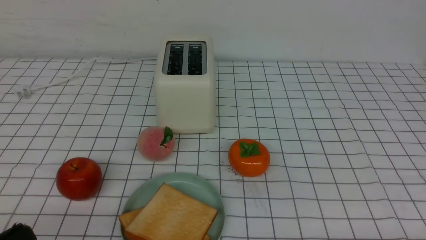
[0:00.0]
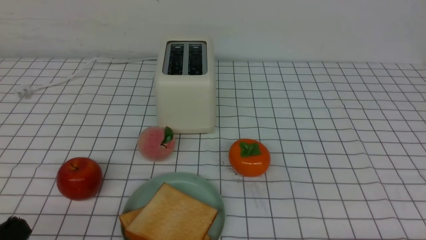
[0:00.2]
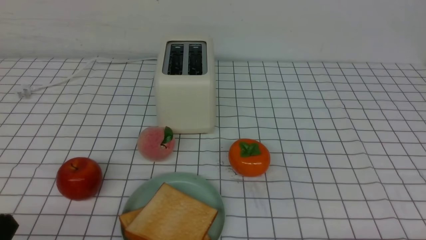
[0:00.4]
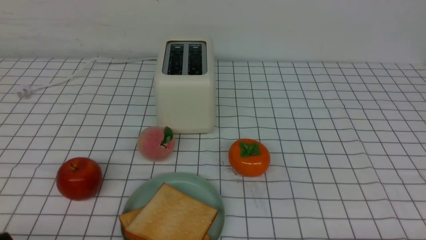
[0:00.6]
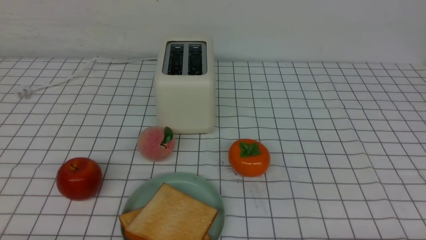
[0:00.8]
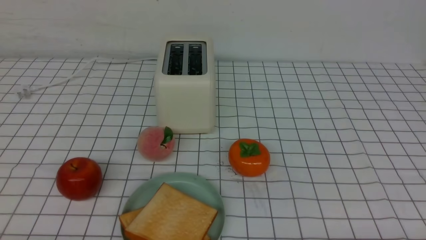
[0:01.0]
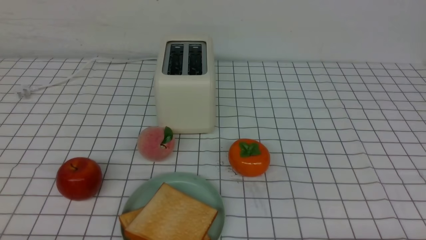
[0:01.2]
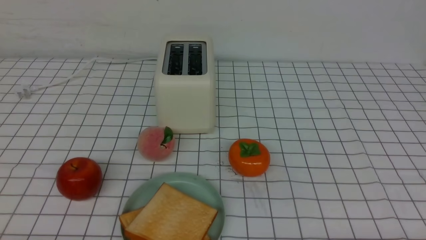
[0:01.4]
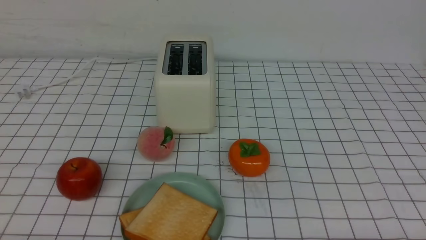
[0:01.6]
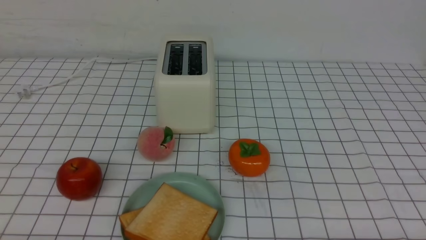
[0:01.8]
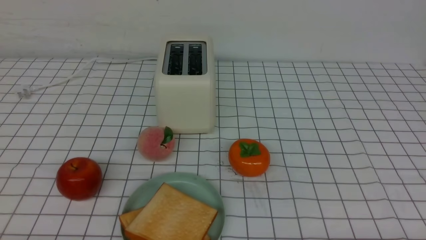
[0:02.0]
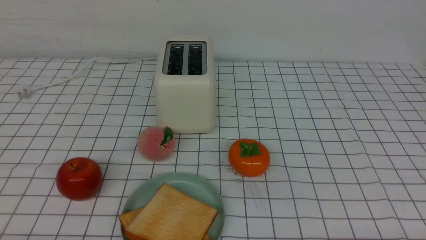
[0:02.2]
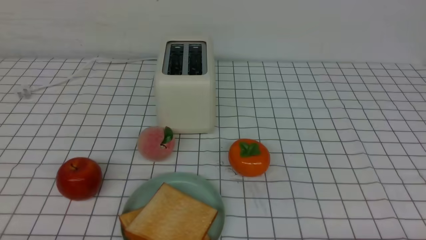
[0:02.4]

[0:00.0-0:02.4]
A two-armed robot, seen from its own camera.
Task of the whole recording: take toasted bread from bread machine on white checkered table place on plate.
0:01.2 to 0:02.4: Both grippers stay about where they are.

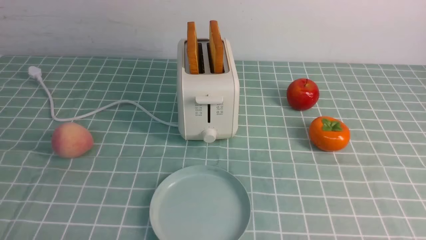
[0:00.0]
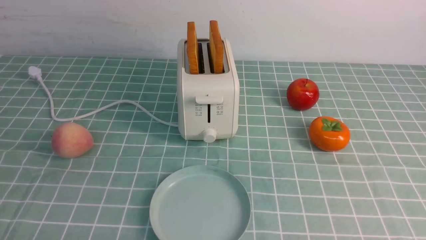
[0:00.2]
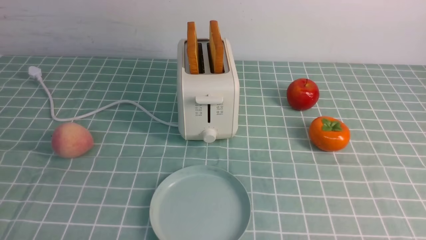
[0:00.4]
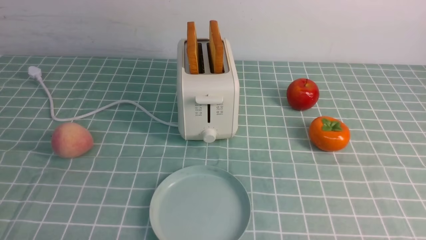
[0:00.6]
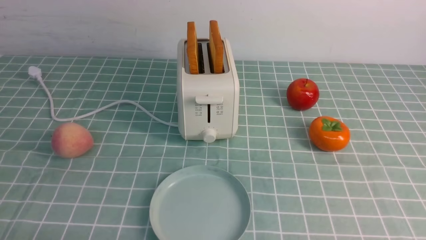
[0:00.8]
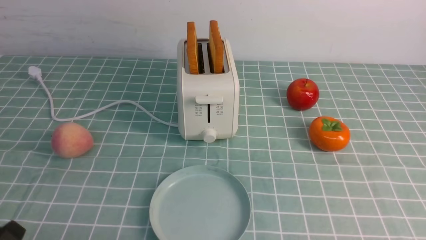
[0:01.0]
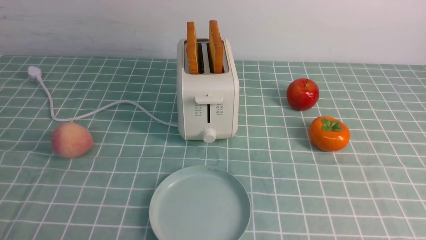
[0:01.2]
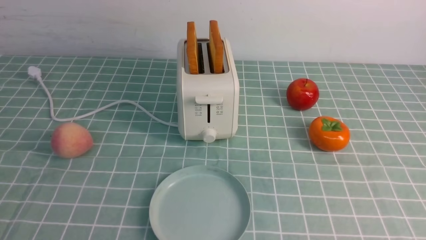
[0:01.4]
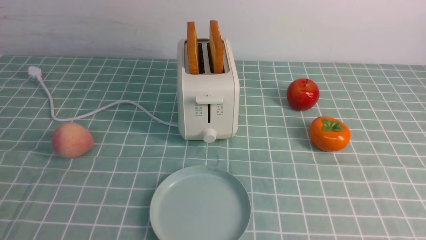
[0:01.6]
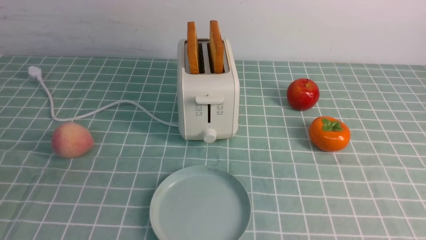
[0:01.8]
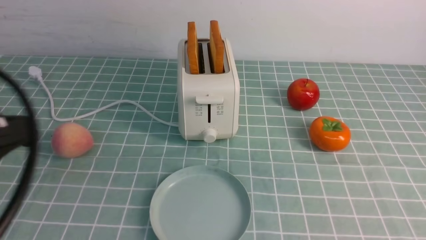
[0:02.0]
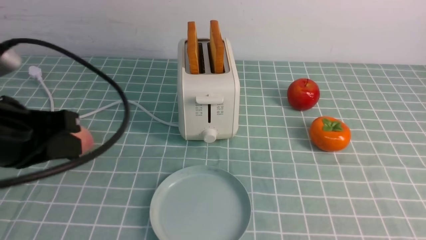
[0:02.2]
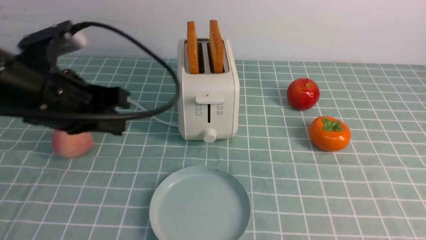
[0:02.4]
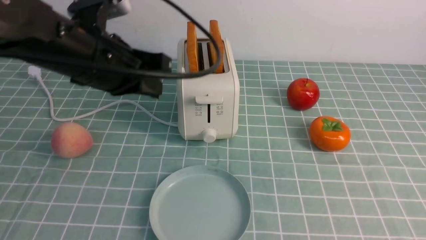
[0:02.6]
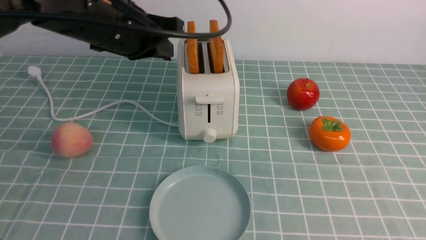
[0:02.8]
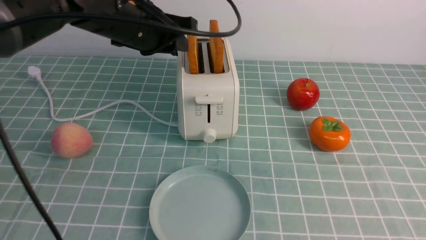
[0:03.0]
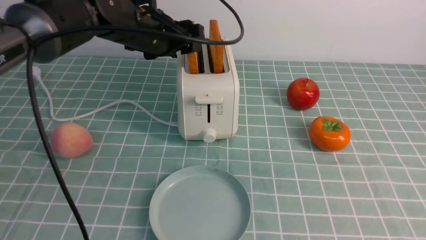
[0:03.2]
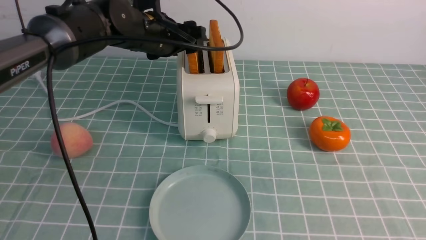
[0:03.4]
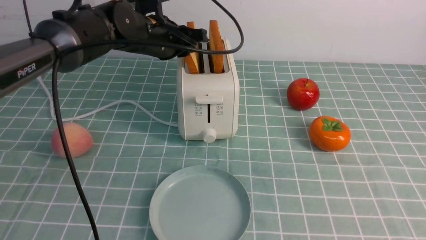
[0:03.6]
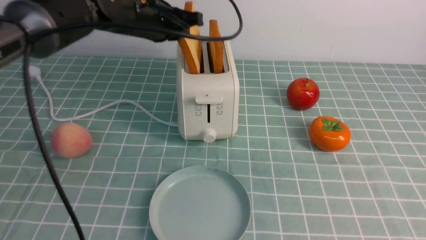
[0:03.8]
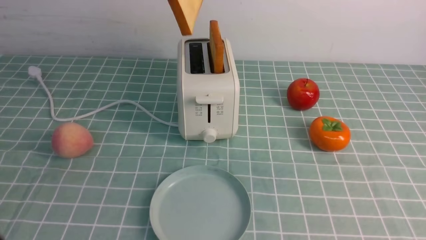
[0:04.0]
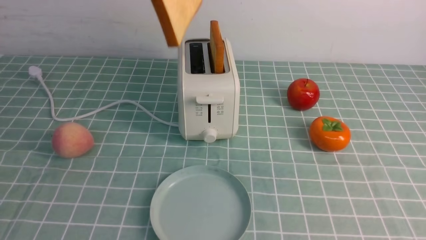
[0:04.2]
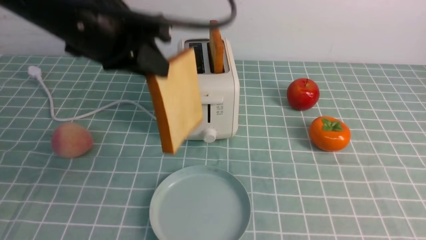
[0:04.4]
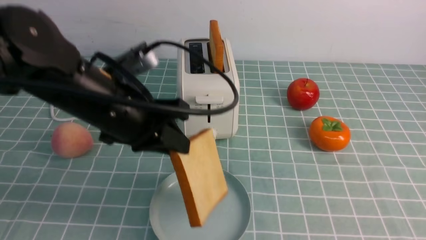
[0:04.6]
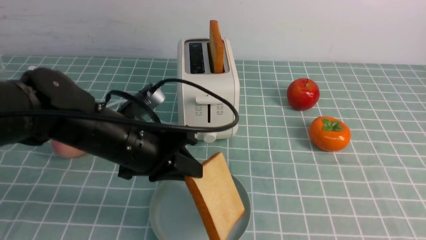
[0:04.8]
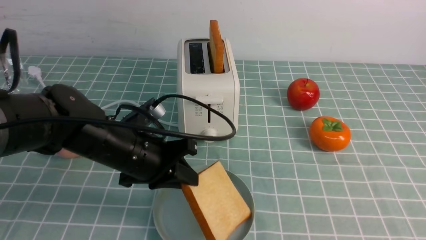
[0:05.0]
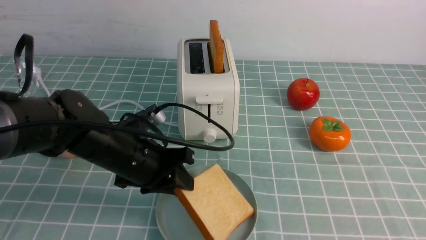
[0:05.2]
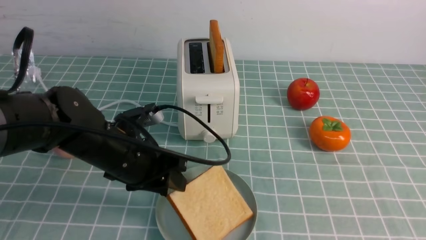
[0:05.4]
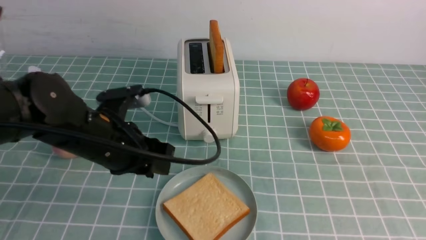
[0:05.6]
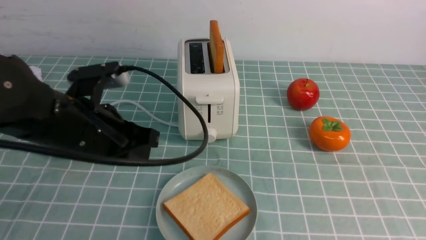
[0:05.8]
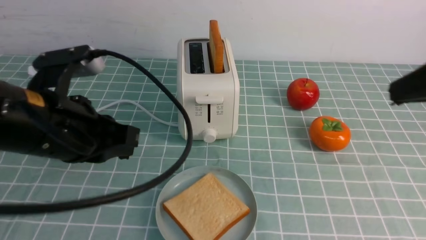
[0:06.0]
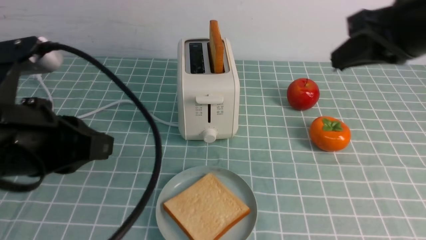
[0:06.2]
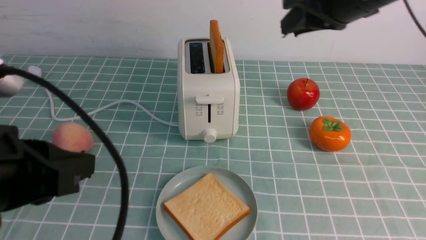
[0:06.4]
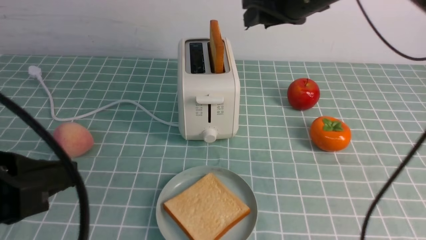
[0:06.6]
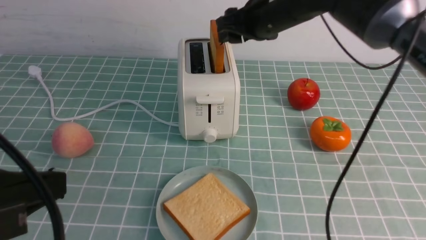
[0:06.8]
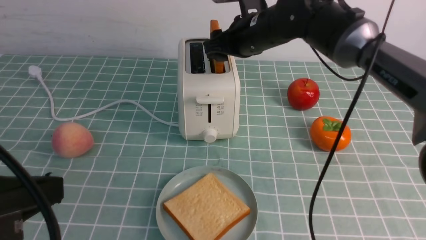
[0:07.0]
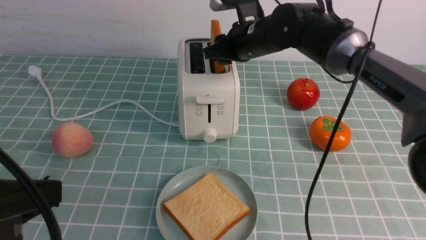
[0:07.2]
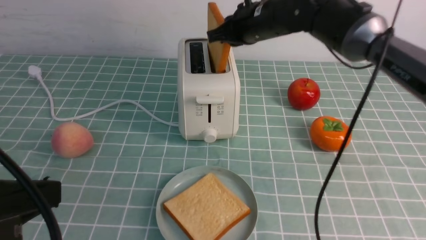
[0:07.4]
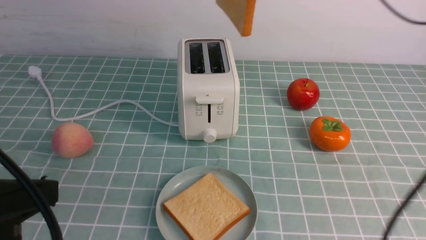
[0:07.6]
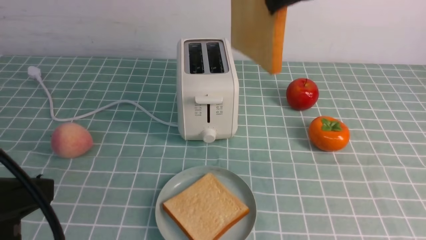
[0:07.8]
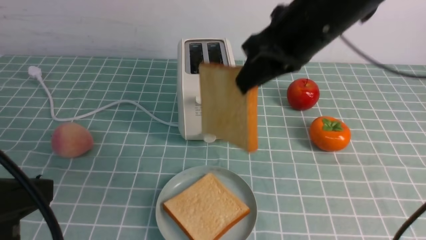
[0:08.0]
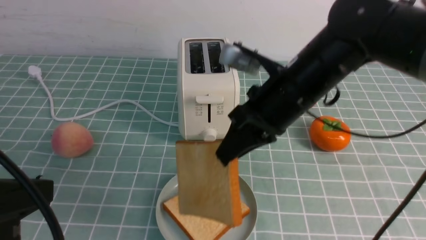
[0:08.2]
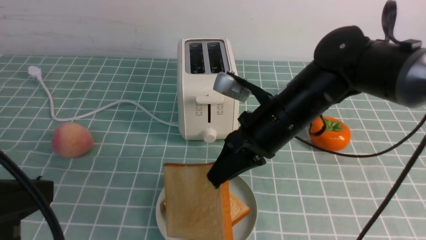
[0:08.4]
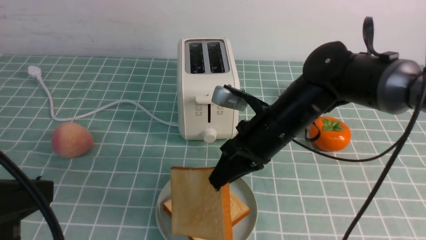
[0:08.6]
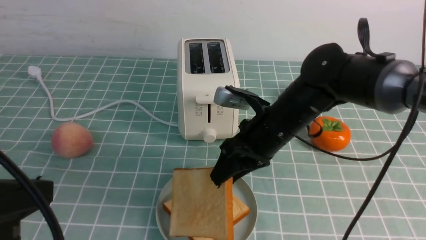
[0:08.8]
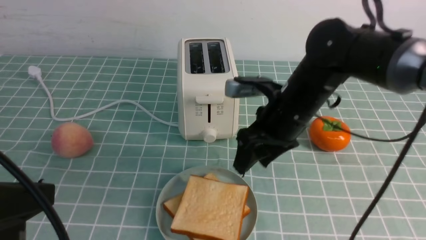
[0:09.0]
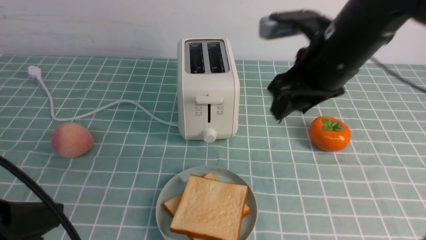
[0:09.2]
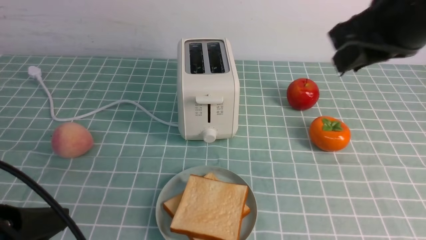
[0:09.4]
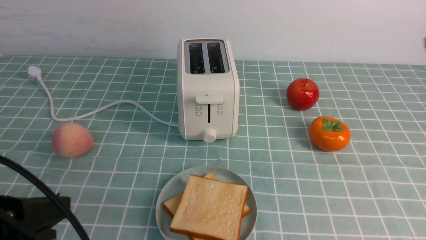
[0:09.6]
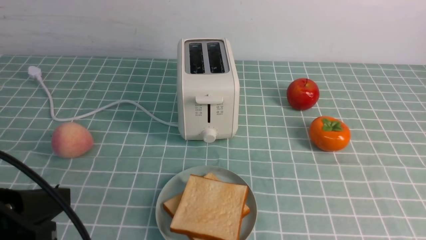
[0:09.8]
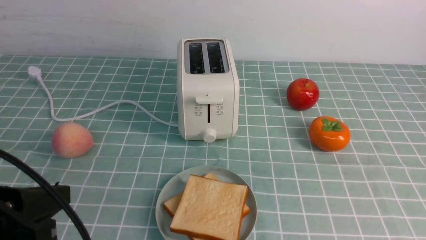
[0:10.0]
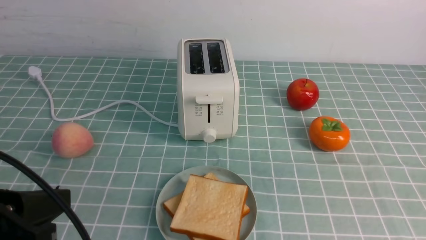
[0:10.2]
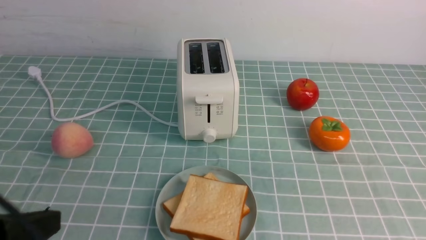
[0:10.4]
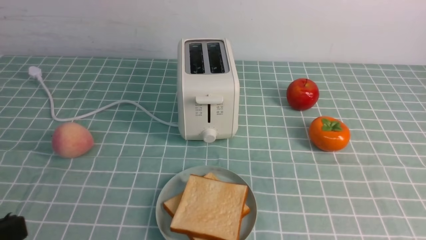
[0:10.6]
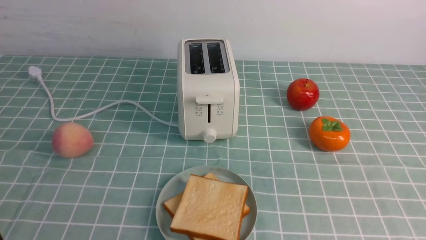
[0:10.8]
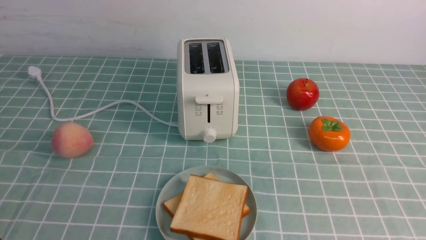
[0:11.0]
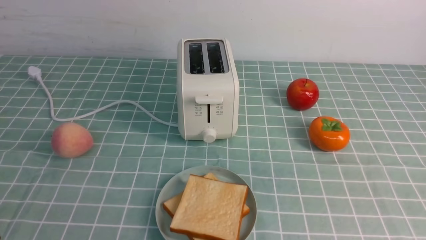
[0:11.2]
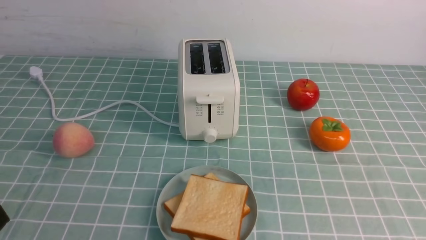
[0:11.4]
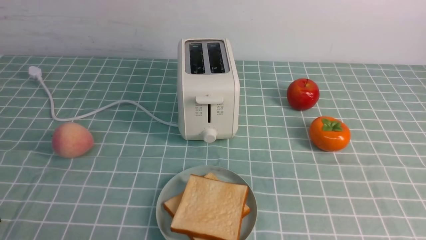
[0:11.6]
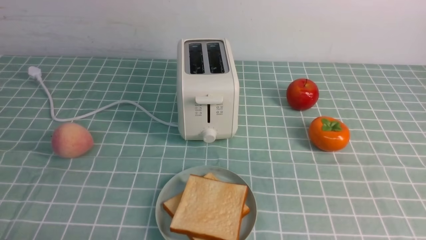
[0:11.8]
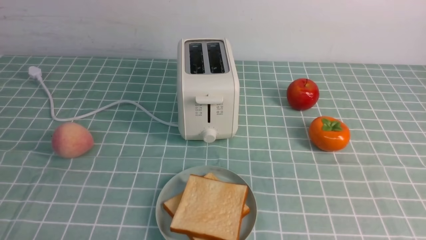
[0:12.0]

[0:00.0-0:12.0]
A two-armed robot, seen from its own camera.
Task of the whole recording: take toasted bread from bread machine on blue coffee table place on plate.
Step, 0:00.0 to 0:04.0: use the left arm to take out a slice of bread.
Step, 0:04.2 to 0:06.0: use the left arm to put a slice of bread into the empty plate.
Step, 0:06.4 to 0:07.4: use the right arm to take out a slice of bread.
Step, 0:07.6 to 0:09.2: use the right arm to put a slice of bread into the plate.
0:01.6 to 0:03.0: The left gripper shifts roughly 40 cm forward and to the right, and opens up. Meanwhile the right gripper moves upward, about 10 cm, and closes up.
0:03.0 to 0:04.4: The left gripper heads backward, covering approximately 10 cm, and closes up.
0:04.4 to 0:06.0: The left gripper heads backward, covering about 10 cm, goes downward and returns, roughly 15 cm each way, and opens and closes again. The right gripper shifts approximately 20 cm forward and upward.
0:06.0 to 0:07.6: The left gripper shifts some 10 cm backward. The right gripper heads forward and to the left, covering roughly 20 cm, and opens, then closes once more.
0:07.6 to 0:09.0: The right gripper shifts roughly 15 cm downward, and opens its fingers.
0:09.0 to 0:10.4: The right gripper moves backward and to the right, roughly 35 cm, and closes.
0:10.4 to 0:12.0: The left gripper heads downward, covering roughly 15 cm.

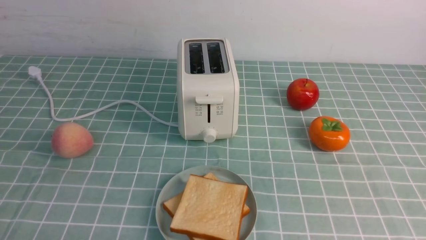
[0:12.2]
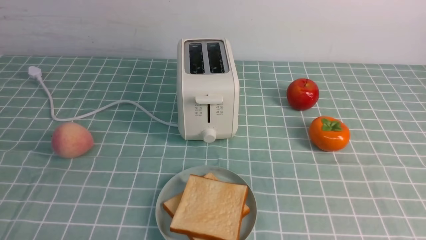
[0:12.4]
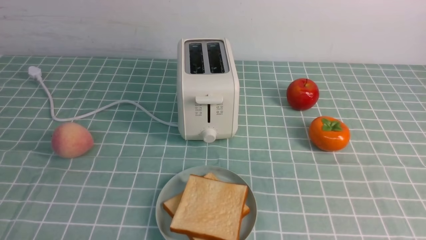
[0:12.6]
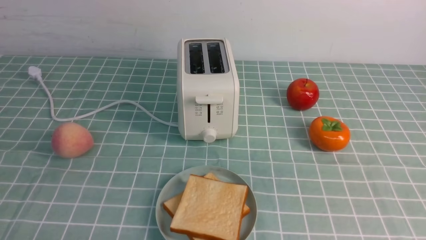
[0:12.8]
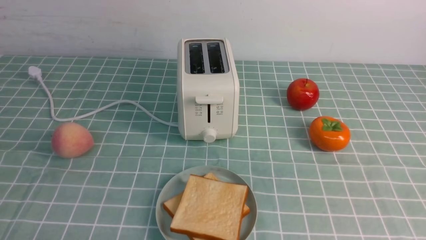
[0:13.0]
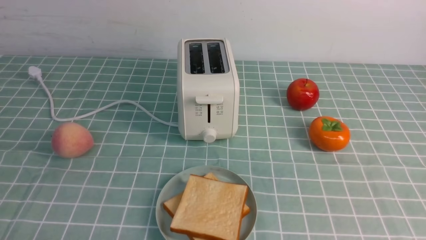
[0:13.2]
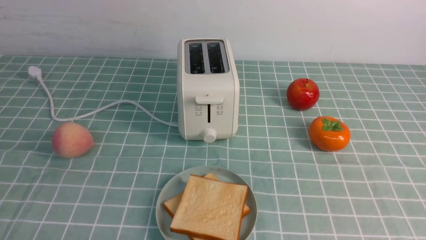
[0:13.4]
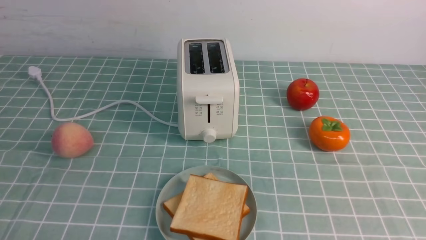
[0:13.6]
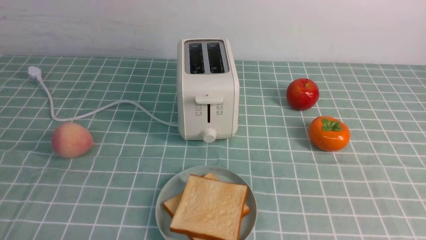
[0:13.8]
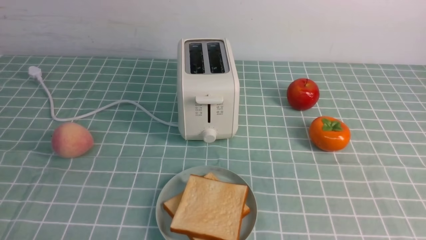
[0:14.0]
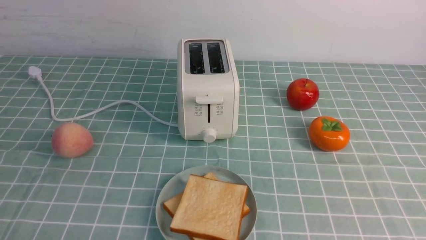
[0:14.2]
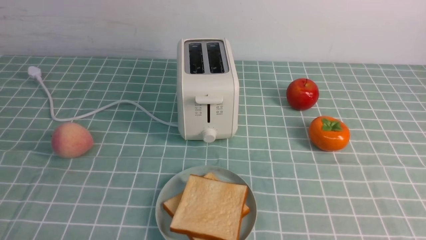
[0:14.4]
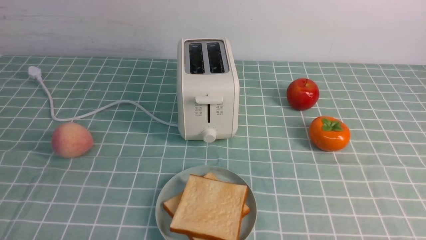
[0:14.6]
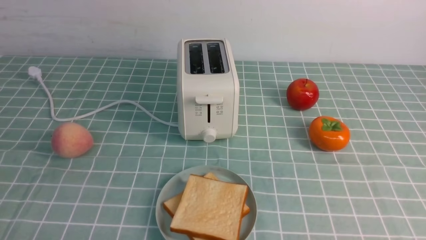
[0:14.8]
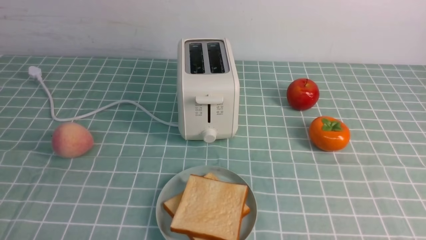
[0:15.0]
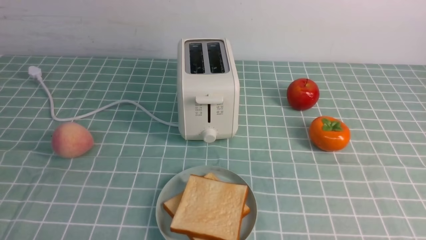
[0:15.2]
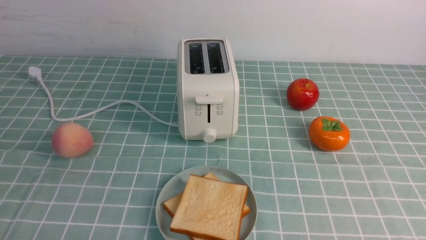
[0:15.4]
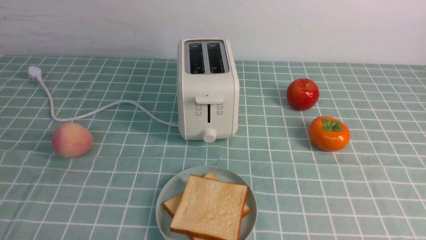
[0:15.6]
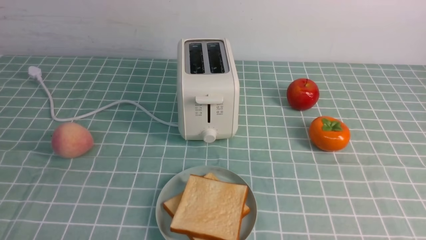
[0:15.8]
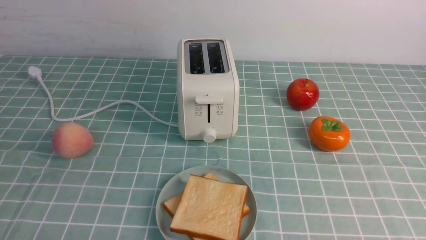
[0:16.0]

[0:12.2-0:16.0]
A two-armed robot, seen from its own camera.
Task of the whole recording: take toasted bread from bread machine on blue coffee table place on plate.
0:14.8 to 0:16.0: Both grippers stay put.
